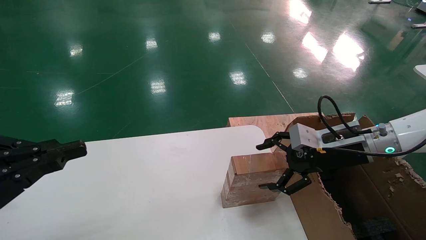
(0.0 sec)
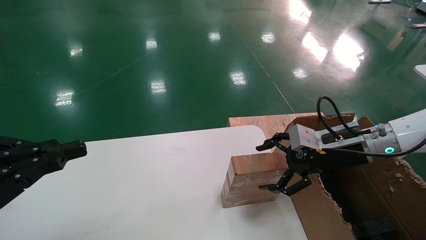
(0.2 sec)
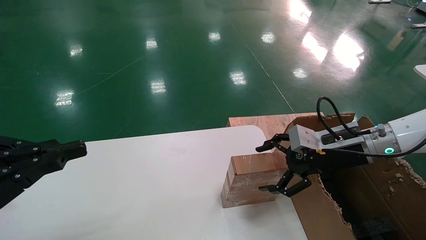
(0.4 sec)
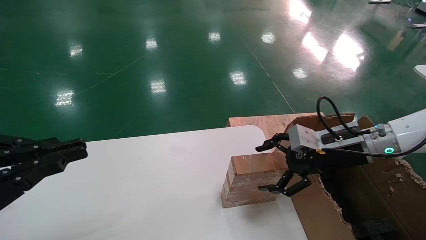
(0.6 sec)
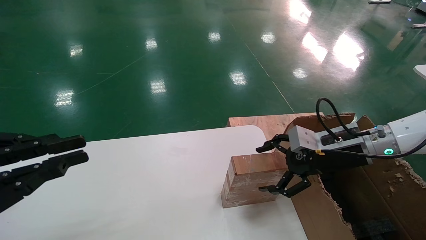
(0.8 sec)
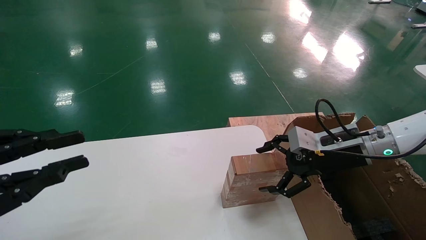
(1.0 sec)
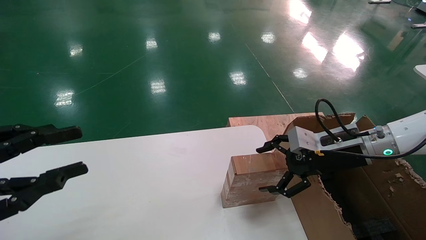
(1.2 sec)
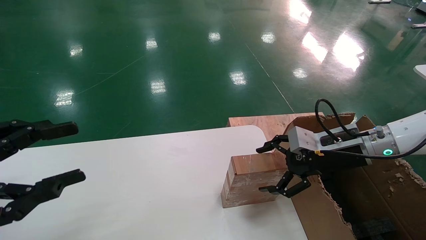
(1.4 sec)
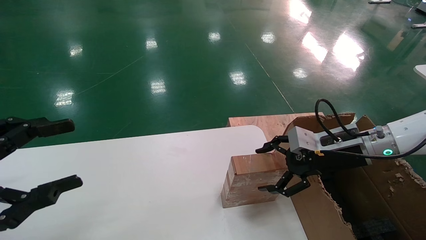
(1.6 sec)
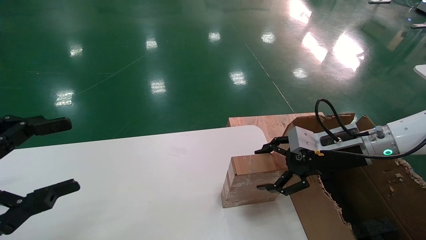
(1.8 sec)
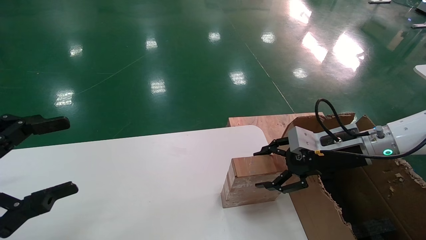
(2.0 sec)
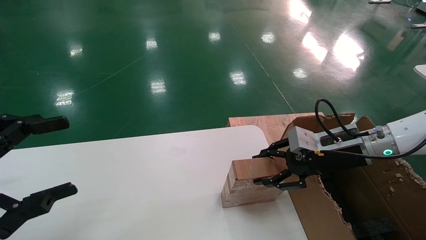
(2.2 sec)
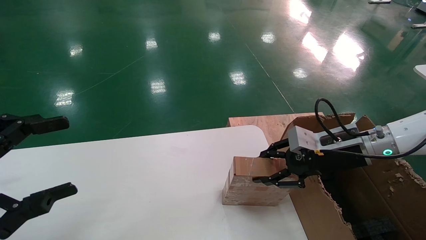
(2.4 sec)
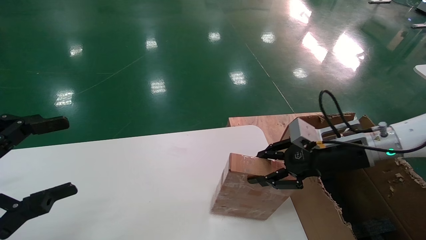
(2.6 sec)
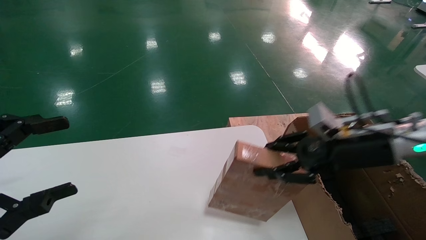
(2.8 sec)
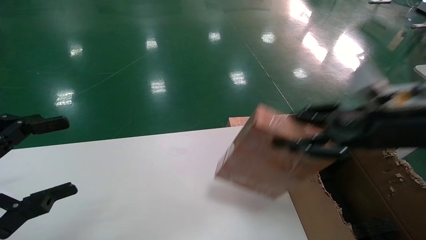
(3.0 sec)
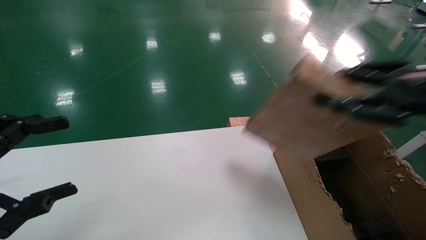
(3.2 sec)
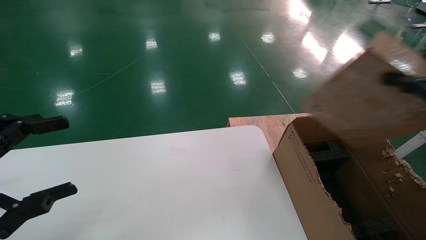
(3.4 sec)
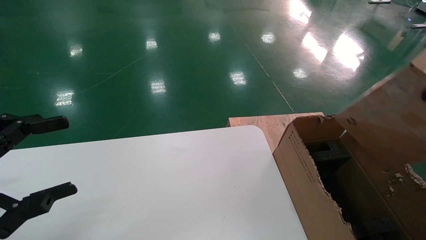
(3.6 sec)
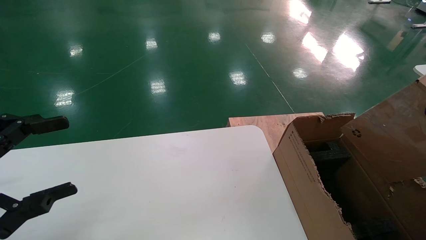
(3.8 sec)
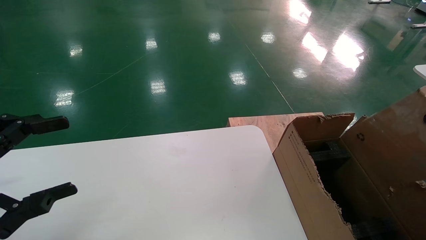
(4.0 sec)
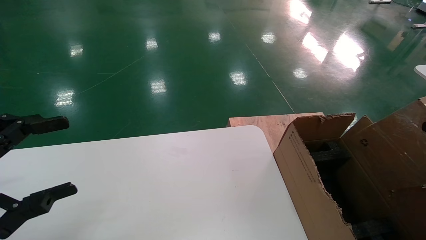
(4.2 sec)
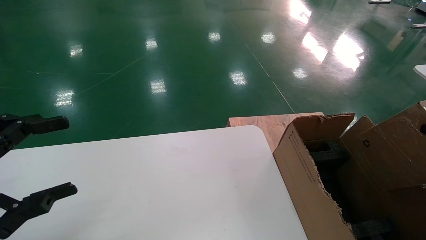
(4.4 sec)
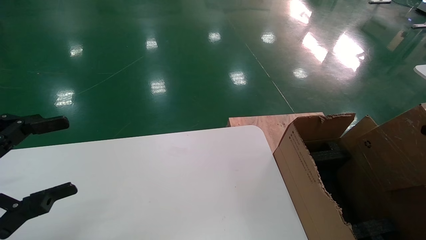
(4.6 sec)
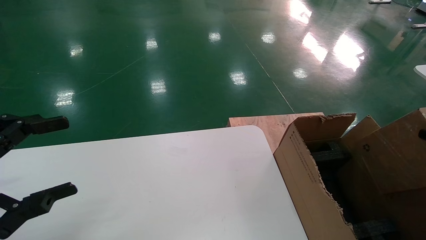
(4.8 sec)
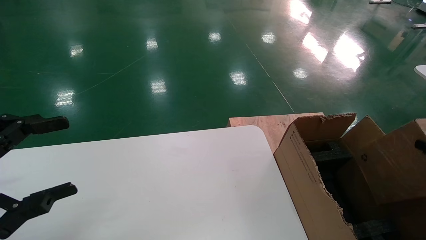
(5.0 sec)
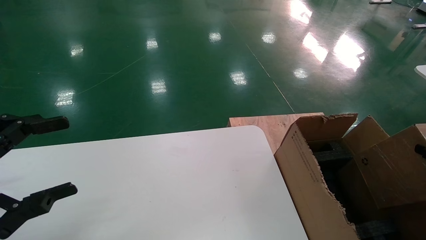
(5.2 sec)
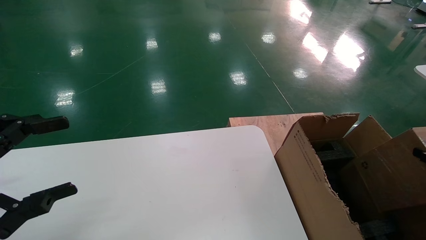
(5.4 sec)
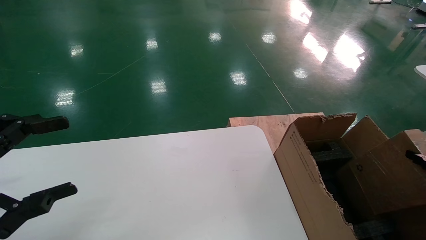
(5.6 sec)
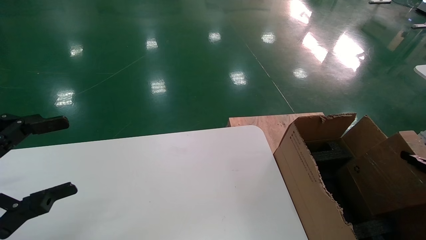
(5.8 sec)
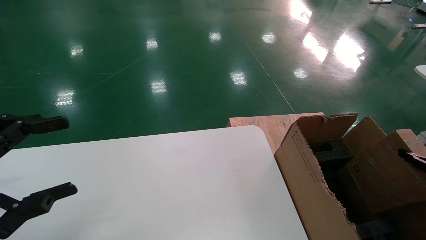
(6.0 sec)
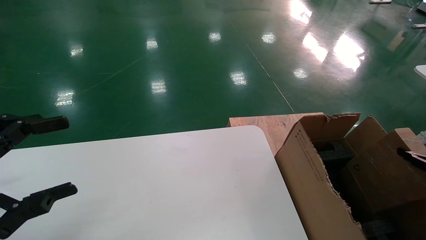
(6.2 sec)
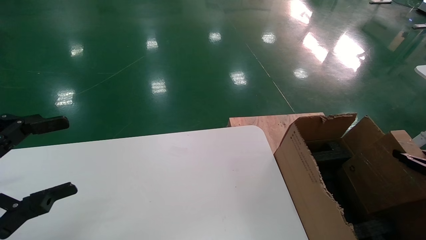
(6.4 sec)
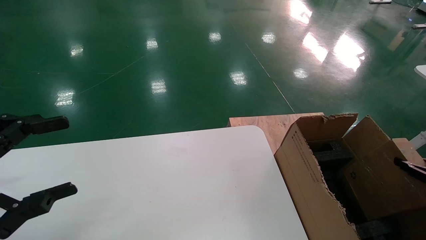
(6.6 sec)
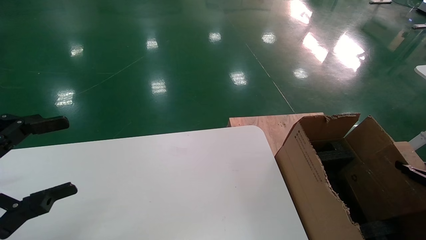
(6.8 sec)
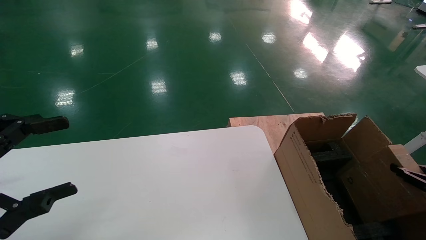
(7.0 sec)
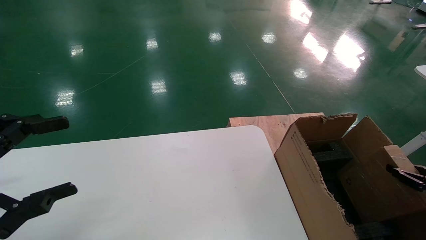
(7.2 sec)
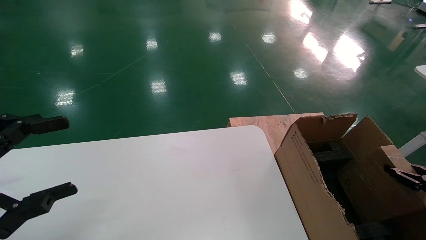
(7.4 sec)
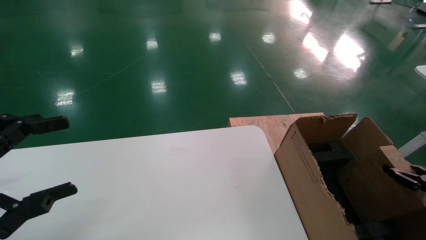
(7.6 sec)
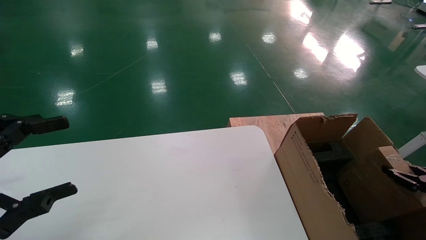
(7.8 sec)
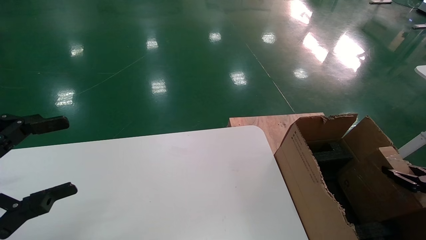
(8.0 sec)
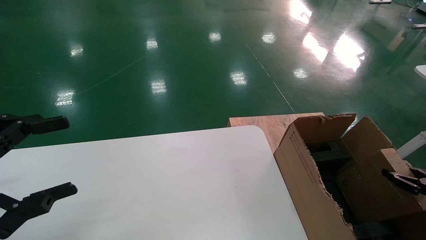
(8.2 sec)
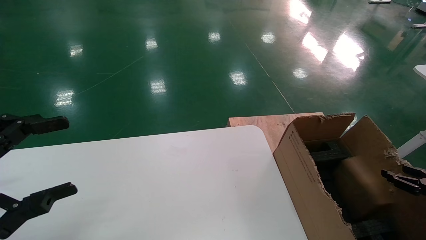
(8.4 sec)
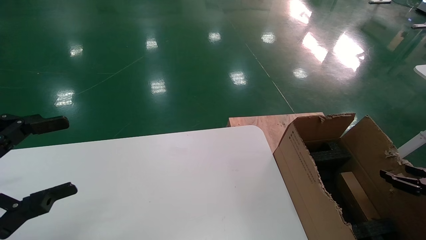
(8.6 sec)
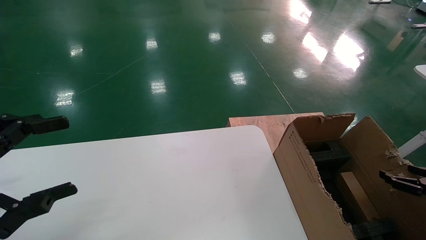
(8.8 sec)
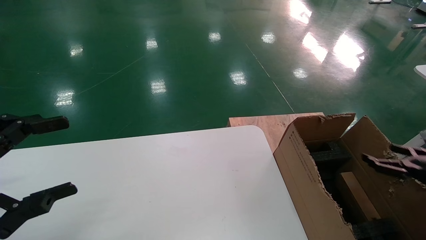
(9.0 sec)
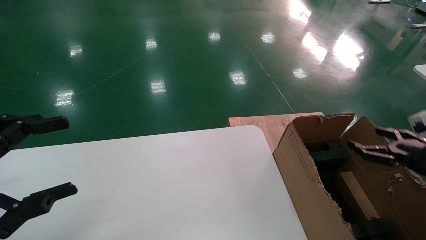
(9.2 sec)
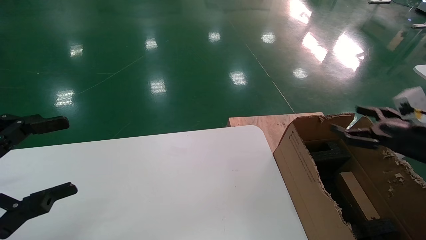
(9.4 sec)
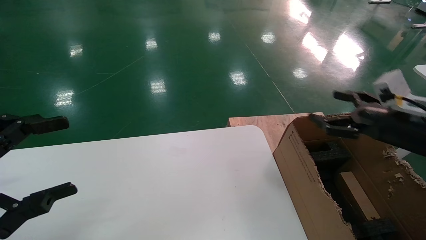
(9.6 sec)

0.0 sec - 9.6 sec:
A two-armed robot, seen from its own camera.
Task of the whole recording: put the box on the table into the big box.
Step, 0.0 sec - 2.4 sec: Pick up the mouse and the power cord paper box.
Step, 2.6 sec - 8.6 sec: Place the mouse and the power cord paper box into the container.
0.0 sec - 1.6 sec: The left gripper opens its fingers.
1.6 sec - 3.2 sec: The right gripper moves backward, upward and to the right, some 25 cm, and closes its fingers.
3.2 sec - 4.8 sec: The right gripper travels to the right and downward by approximately 25 cm.
4.8 sec - 6.4 sec: The right gripper heads downward, covering about 5 cm.
6.4 sec - 8.0 sec: There are only small adjustments of the grippers.
8.0 sec - 9.6 sec: The right gripper shifts about 20 cm upward, to the left and forward, and opens.

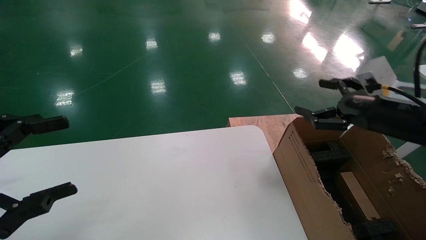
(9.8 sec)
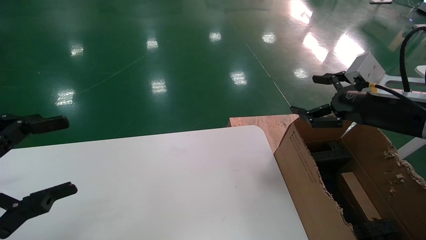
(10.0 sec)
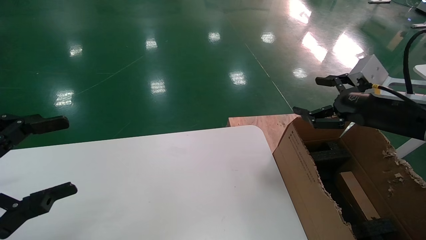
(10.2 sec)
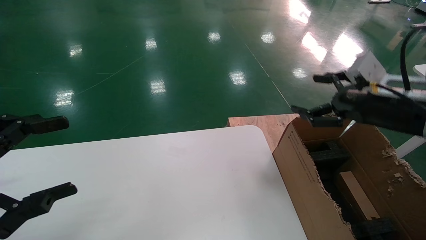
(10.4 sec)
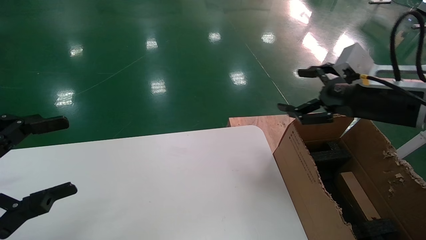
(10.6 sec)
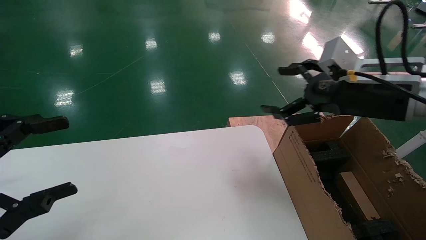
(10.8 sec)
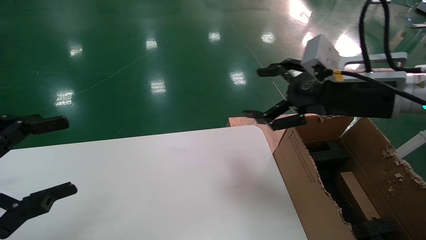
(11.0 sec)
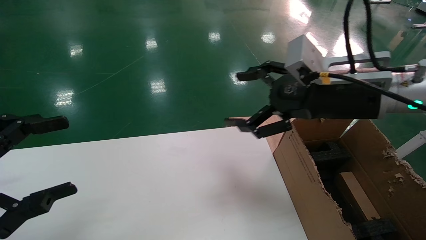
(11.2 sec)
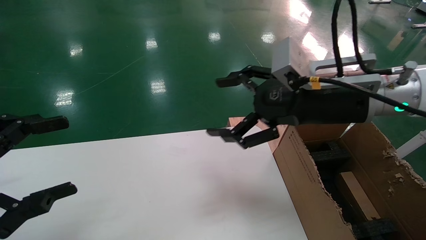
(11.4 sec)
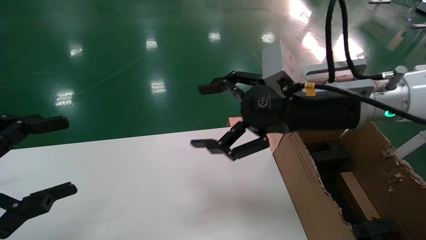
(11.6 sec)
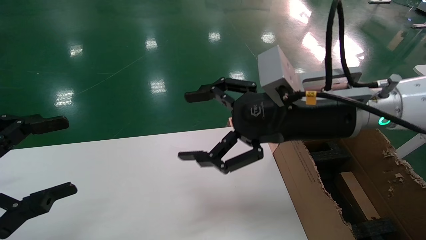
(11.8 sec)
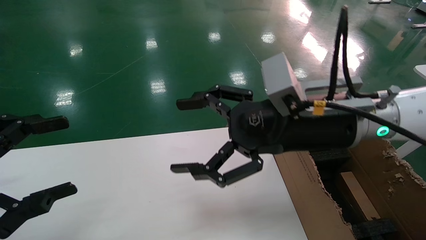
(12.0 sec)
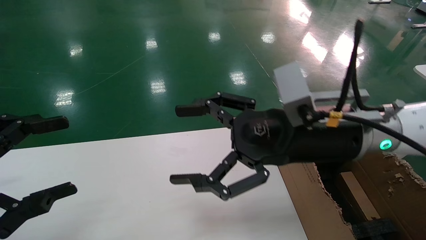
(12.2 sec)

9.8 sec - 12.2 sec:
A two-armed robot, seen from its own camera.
Task of the whole recording: put the box on the table into the big box.
9.8 sec - 11.0 sec: The right gripper heads to the left and upward, covering about 15 cm.
11.0 sec - 12.2 sec: The right gripper moves to the left, some 10 cm.
